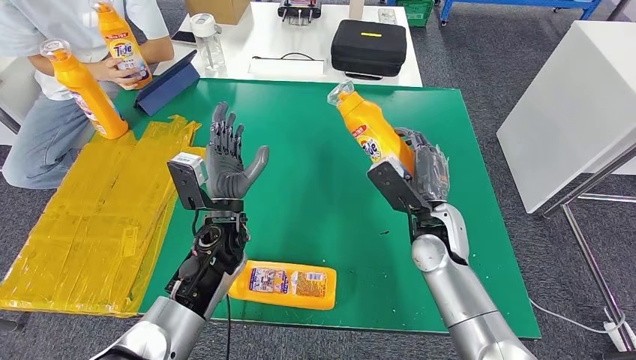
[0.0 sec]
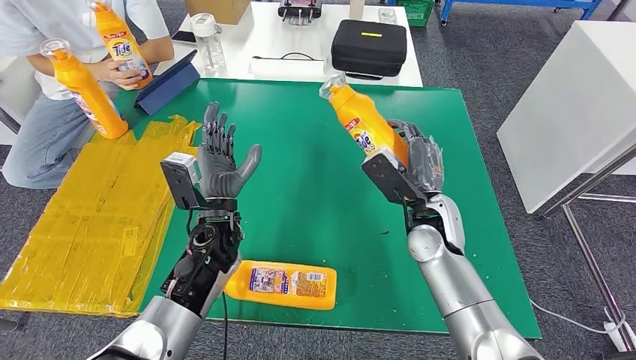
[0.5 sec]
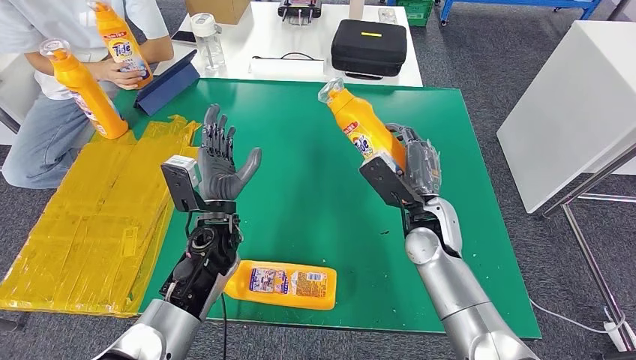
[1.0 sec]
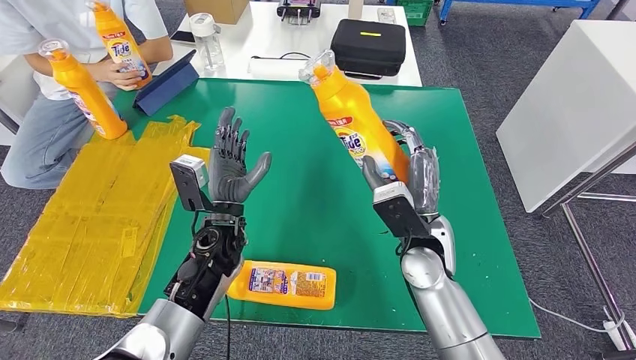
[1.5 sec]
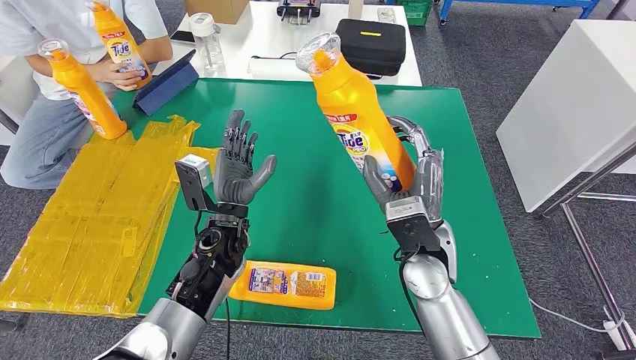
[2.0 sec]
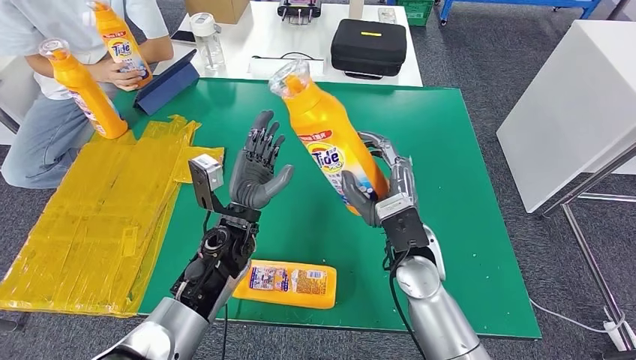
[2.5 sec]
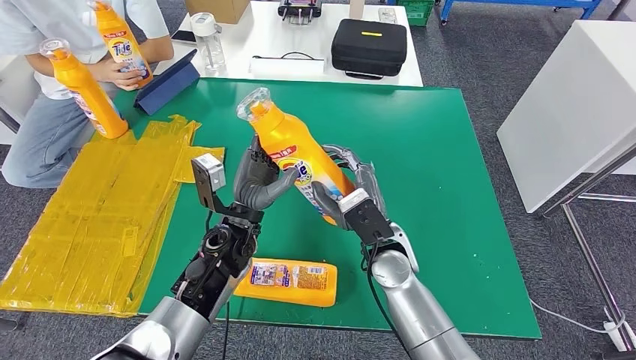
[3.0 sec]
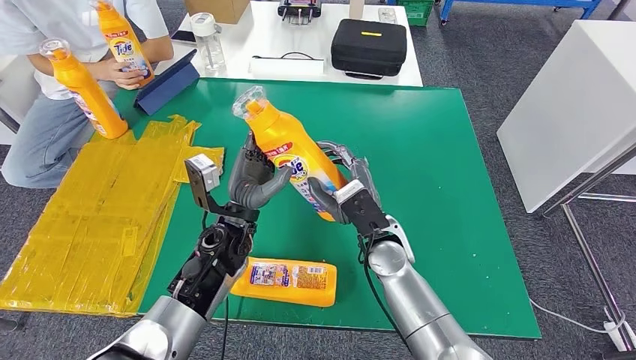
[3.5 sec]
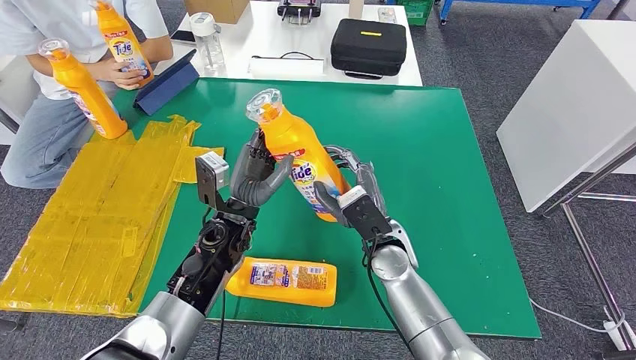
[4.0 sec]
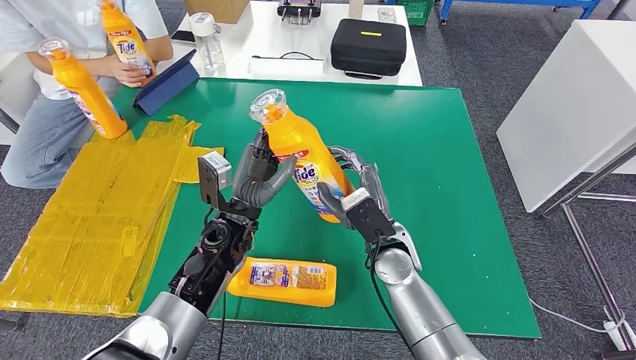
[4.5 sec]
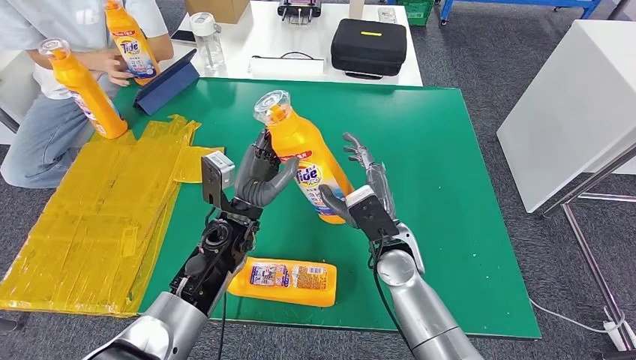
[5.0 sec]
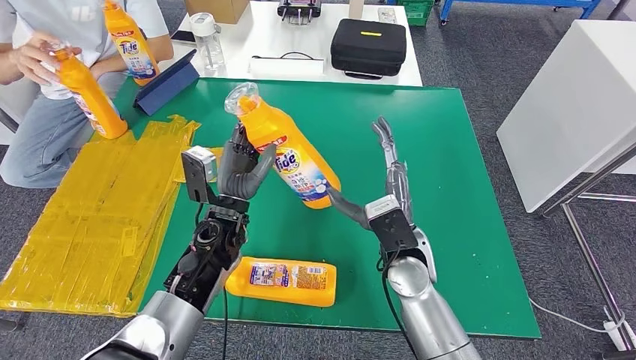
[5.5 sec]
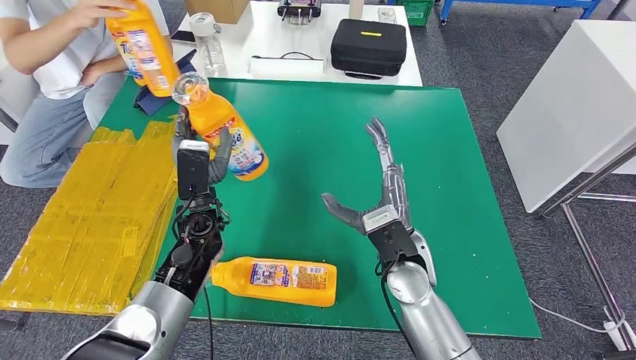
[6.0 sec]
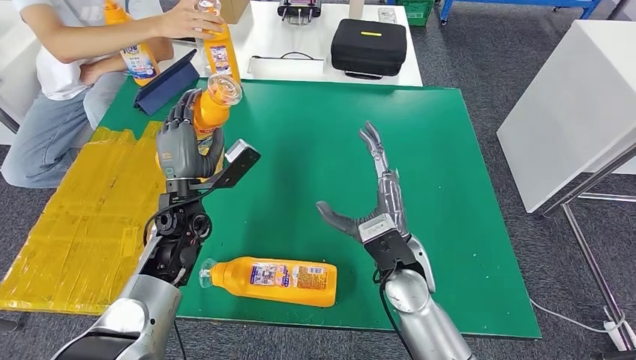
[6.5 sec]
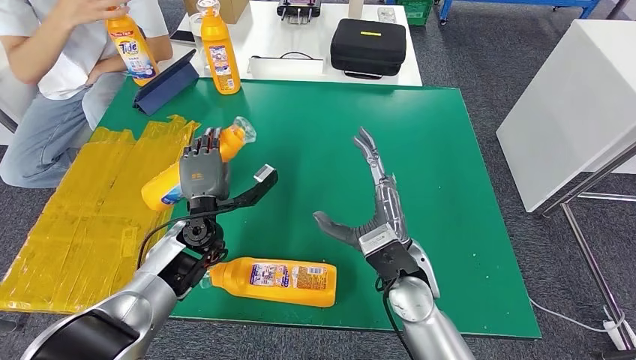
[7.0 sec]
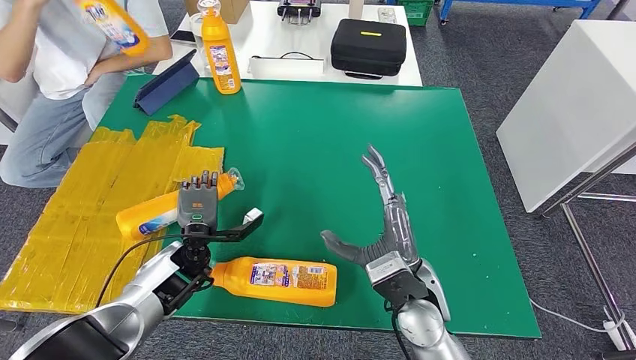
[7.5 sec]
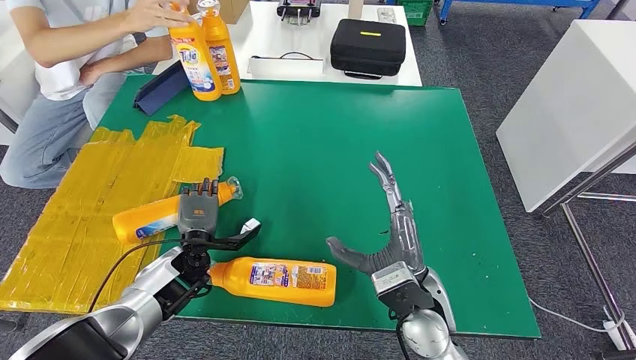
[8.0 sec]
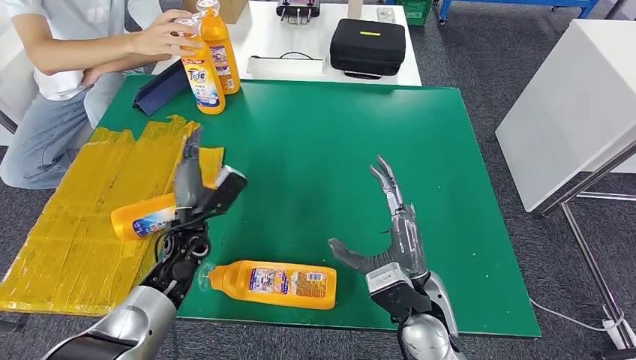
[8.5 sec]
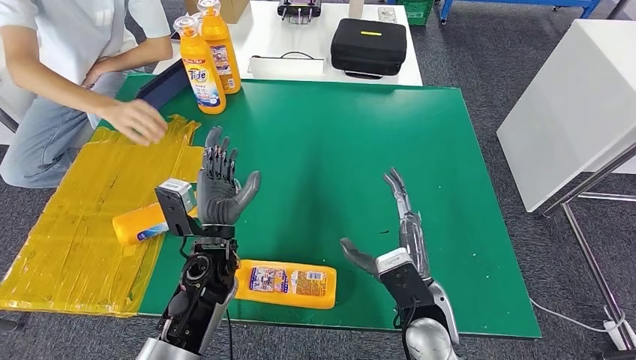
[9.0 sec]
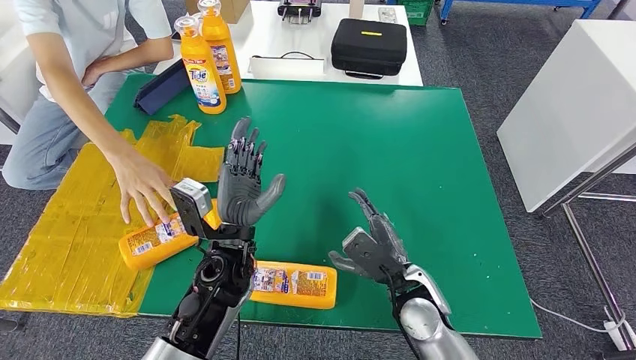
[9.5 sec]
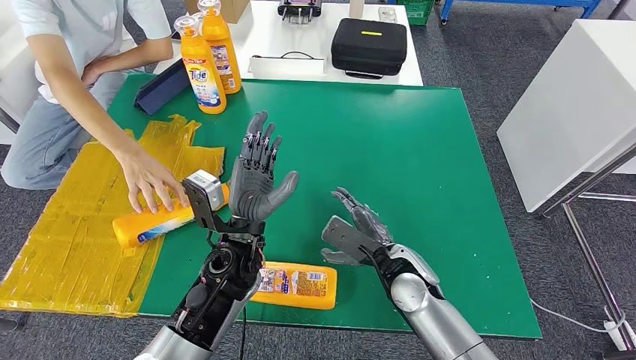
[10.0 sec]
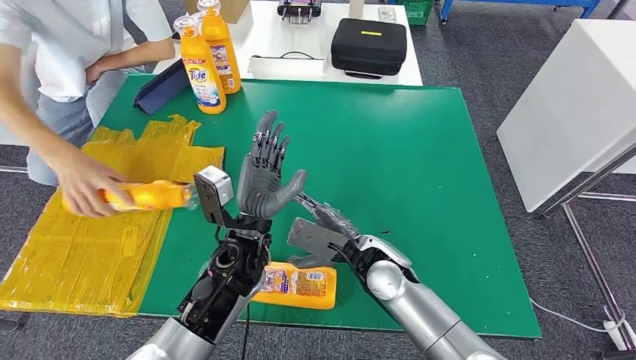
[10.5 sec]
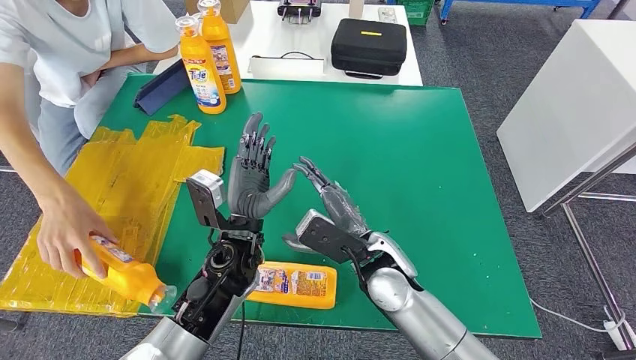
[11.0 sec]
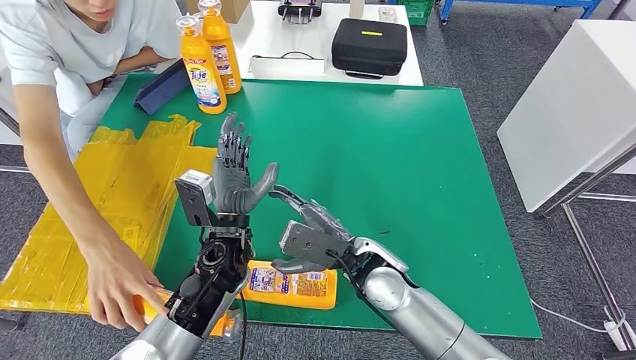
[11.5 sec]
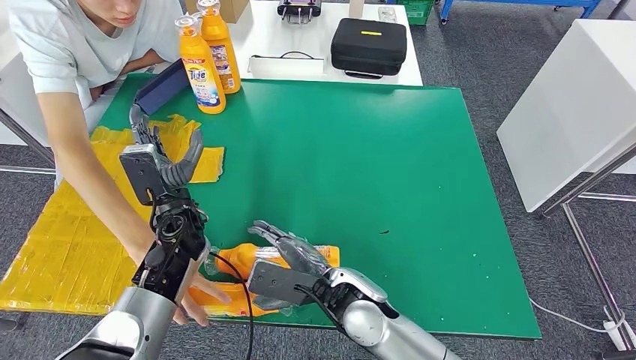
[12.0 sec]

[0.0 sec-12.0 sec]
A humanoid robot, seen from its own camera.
Step, 0.0 sec to 2.5 sec: Pick up the bottle from the table.
Step, 3.0 sec to 9.0 sec: Flip the bottle to face forward.
0.0 sec to 2.0 sec: The right hand shifts by some 5 cm.
2.0 sec to 4.0 sec: The right hand travels downward by approximately 5 cm.

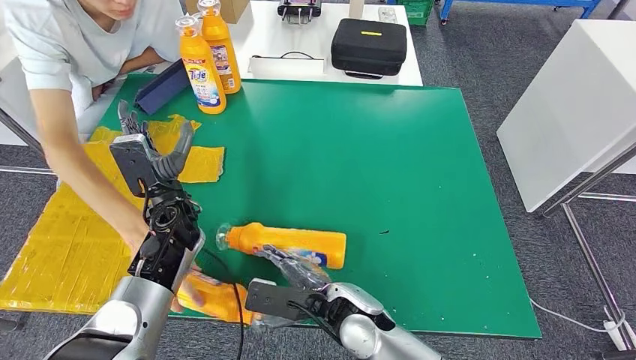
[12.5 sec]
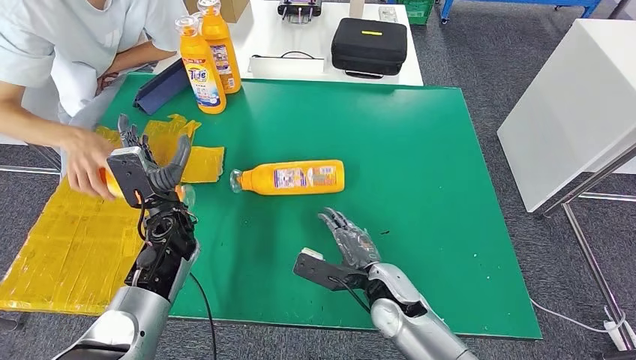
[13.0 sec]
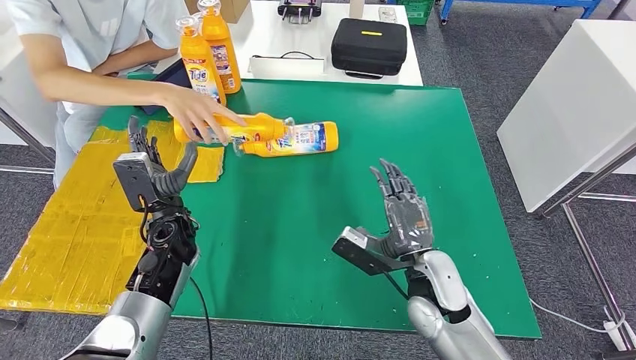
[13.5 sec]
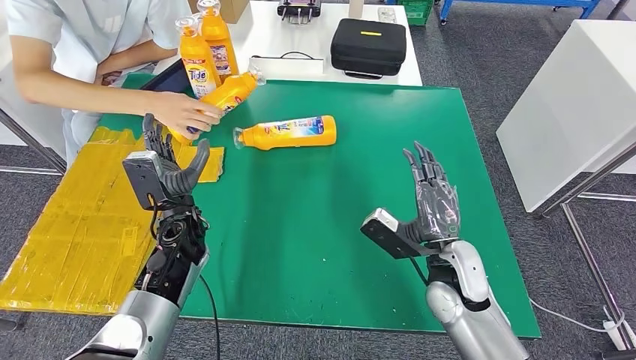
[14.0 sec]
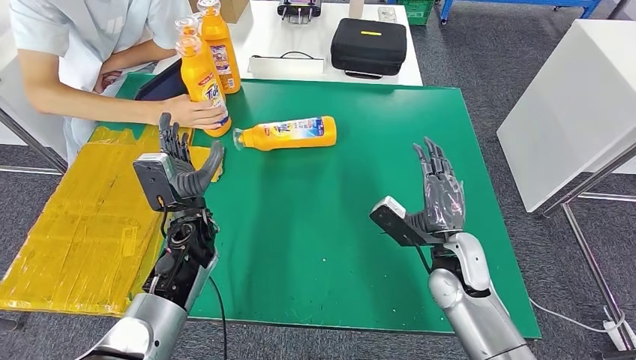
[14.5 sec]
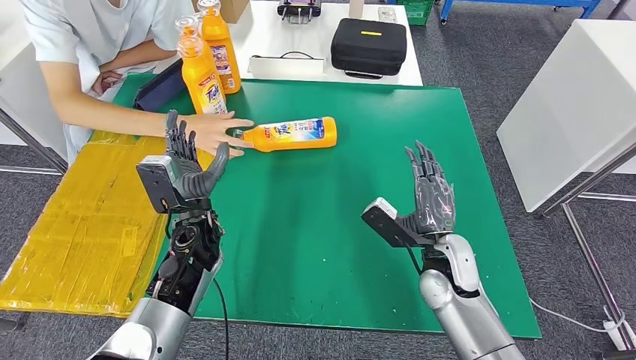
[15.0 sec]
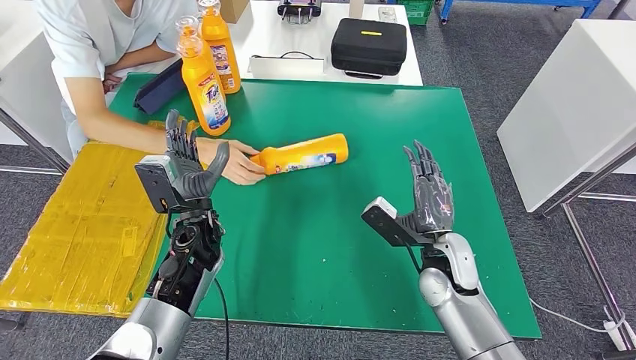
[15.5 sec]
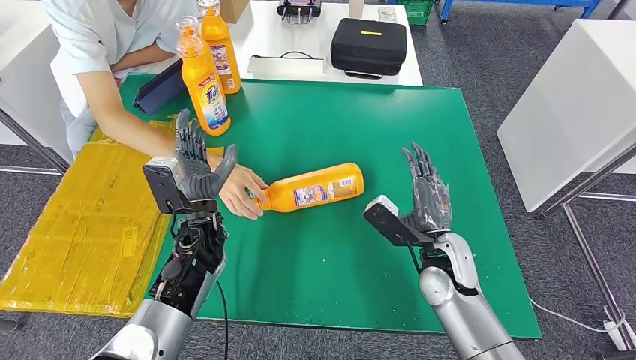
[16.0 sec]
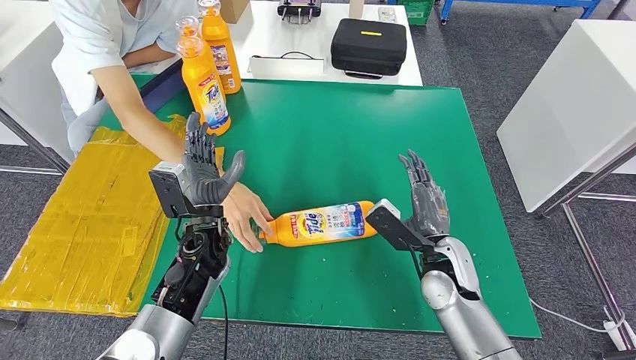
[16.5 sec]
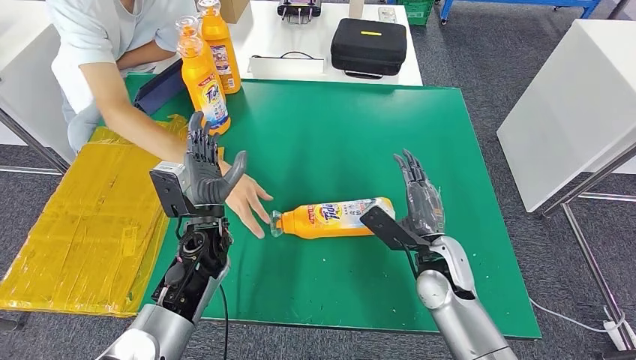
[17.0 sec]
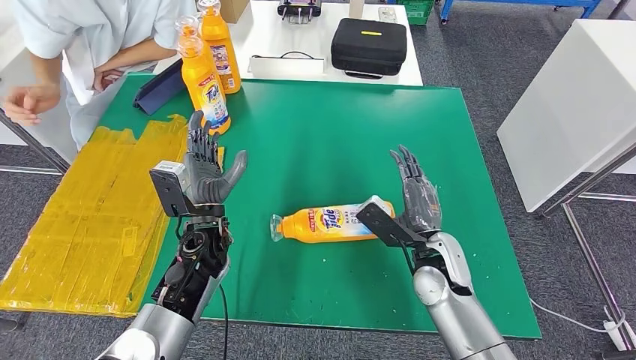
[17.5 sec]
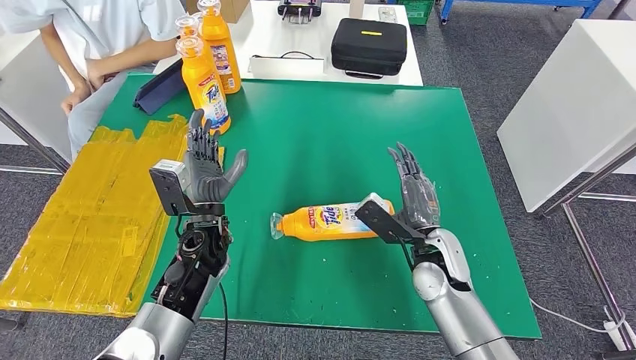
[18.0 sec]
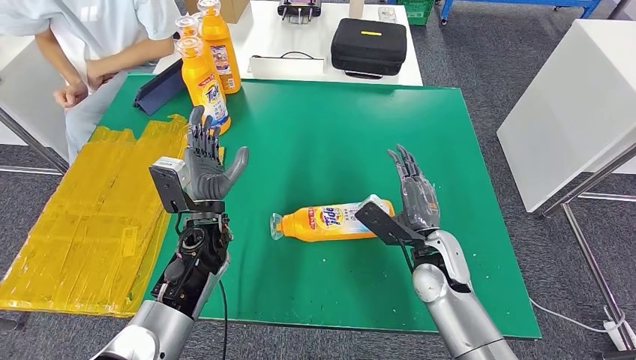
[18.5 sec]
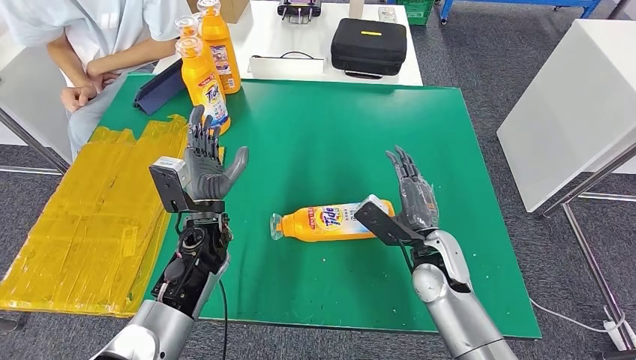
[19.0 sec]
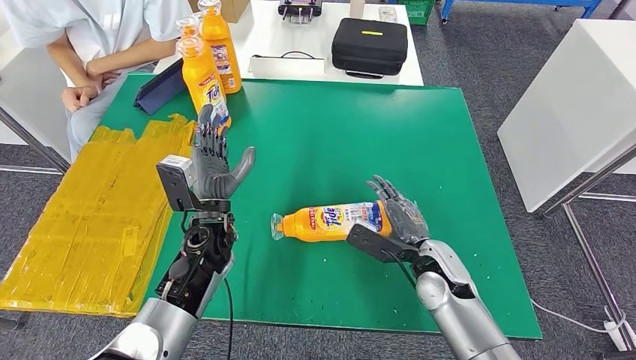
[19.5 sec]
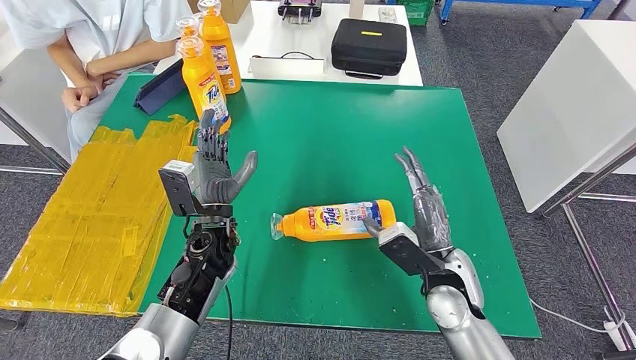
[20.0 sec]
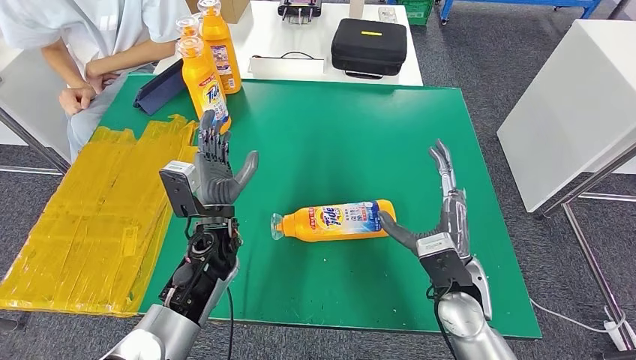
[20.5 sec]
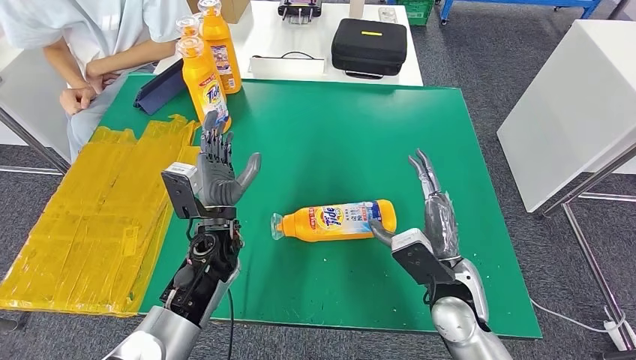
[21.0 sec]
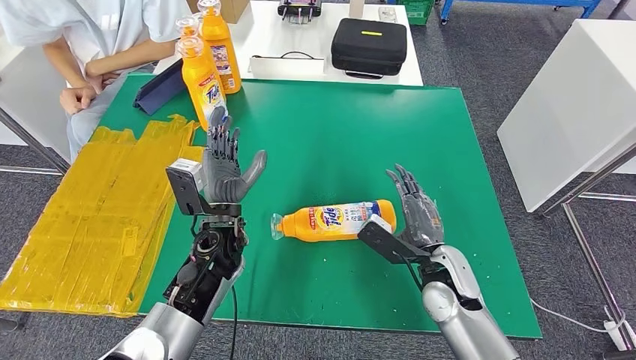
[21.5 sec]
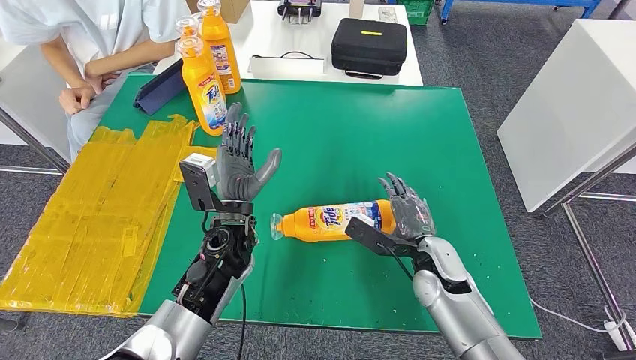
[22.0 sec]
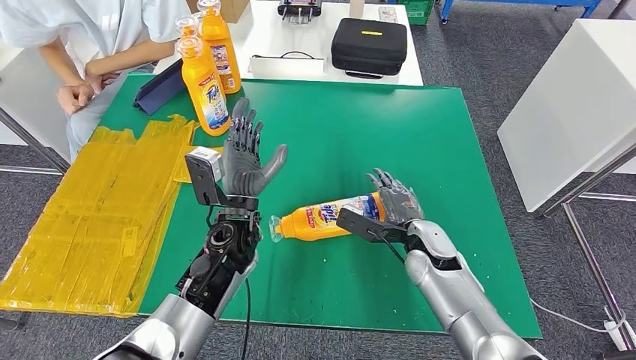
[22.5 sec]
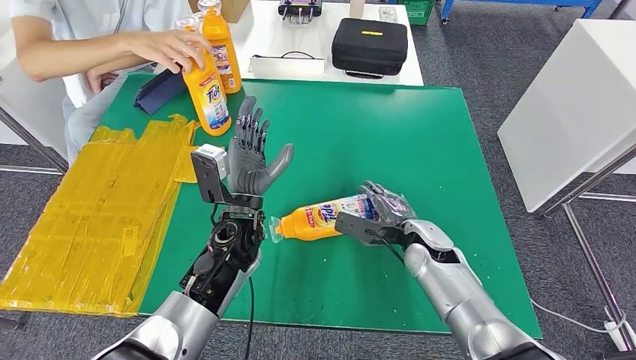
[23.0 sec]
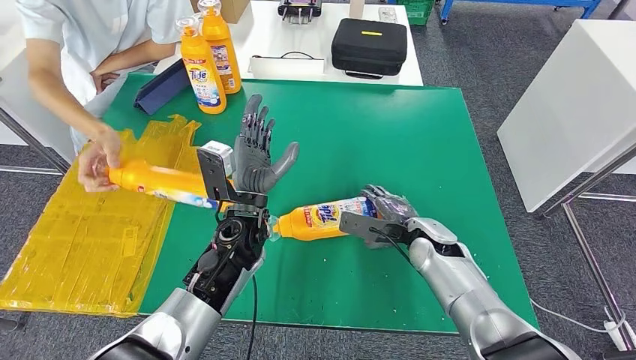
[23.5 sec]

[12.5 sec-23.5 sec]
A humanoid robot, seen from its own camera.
14.5 sec to 18.0 sec: The hands make only small movements.
18.0 sec to 20.0 sec: The hands make only small movements.
21.5 sec to 23.5 sec: The left hand changes place by about 5 cm. The right hand goes some 5 cm forward.
